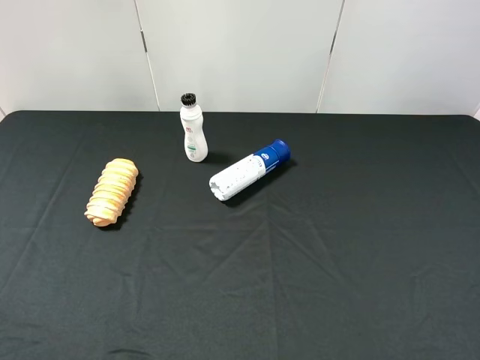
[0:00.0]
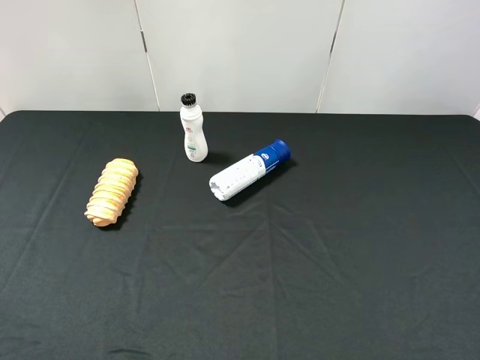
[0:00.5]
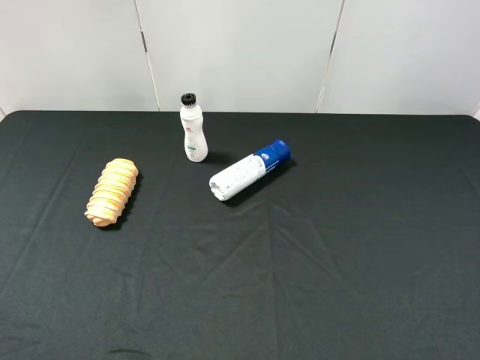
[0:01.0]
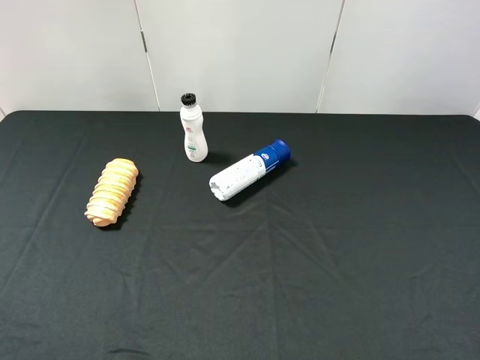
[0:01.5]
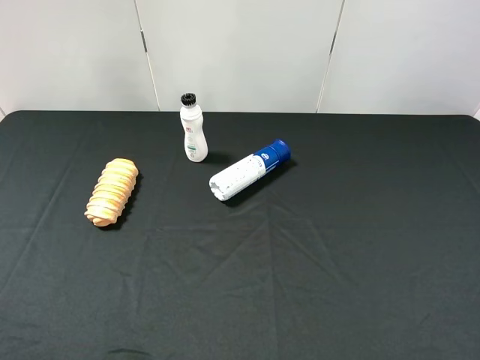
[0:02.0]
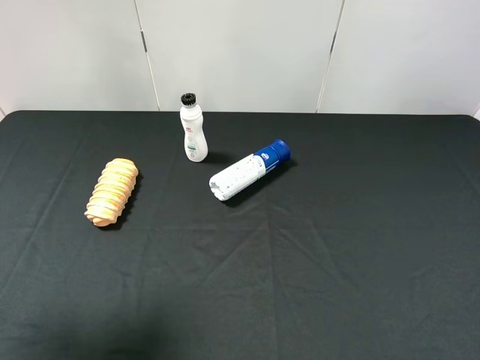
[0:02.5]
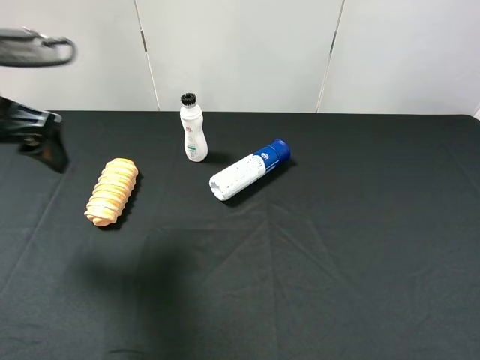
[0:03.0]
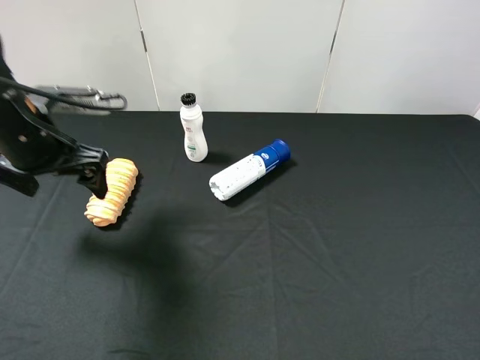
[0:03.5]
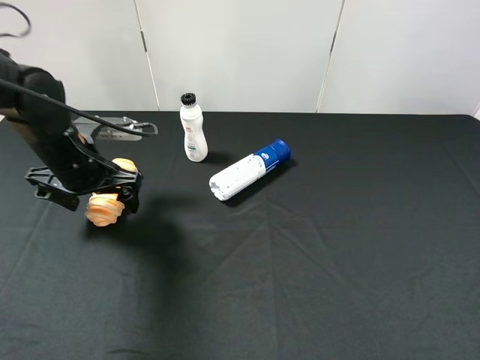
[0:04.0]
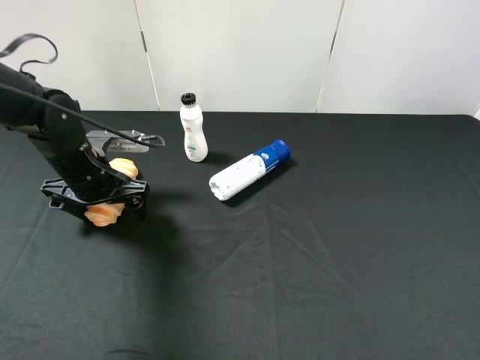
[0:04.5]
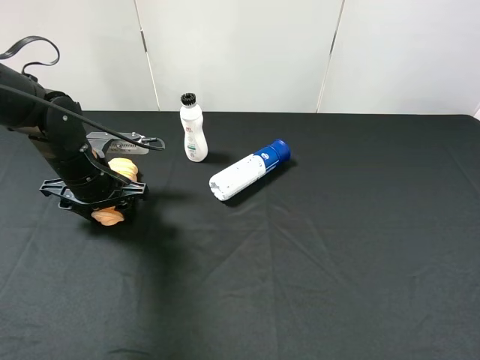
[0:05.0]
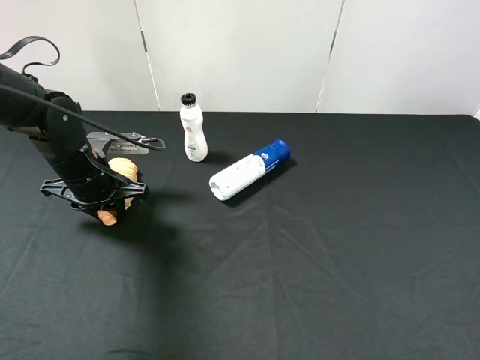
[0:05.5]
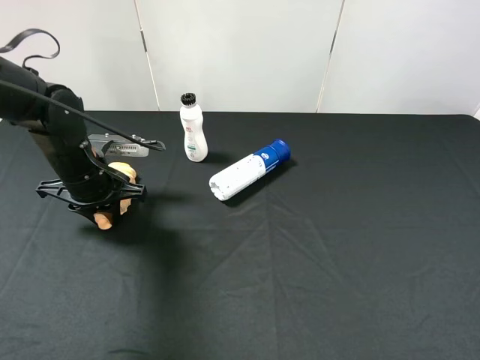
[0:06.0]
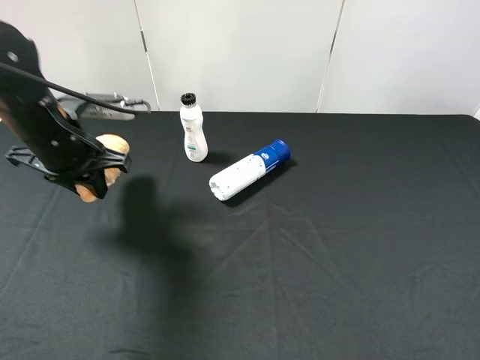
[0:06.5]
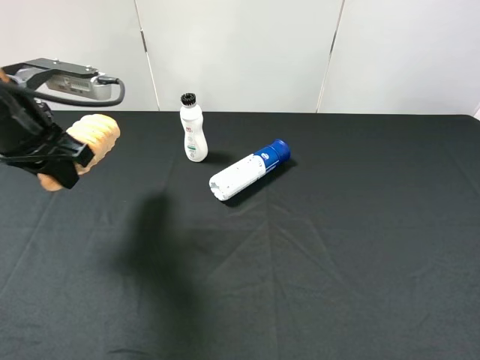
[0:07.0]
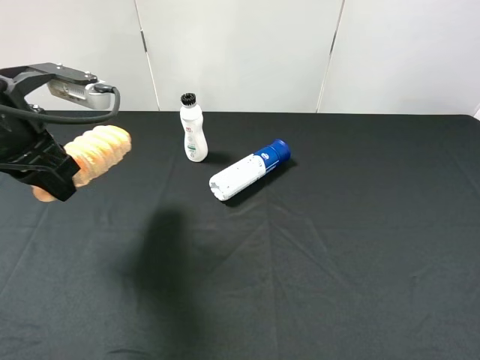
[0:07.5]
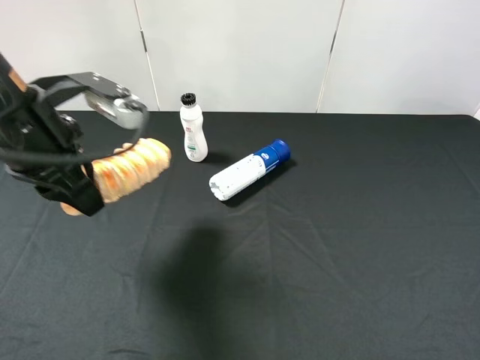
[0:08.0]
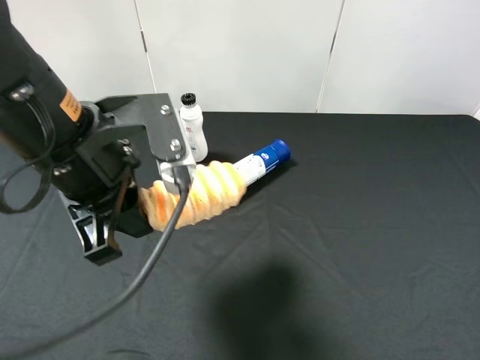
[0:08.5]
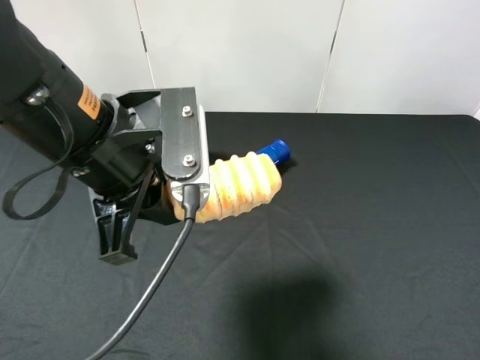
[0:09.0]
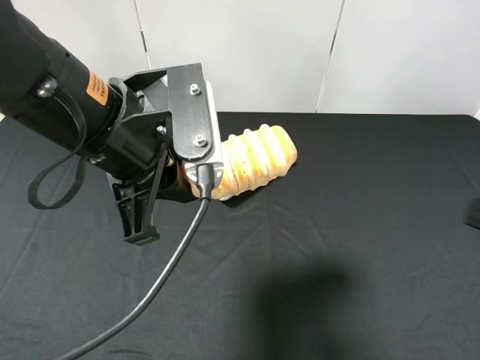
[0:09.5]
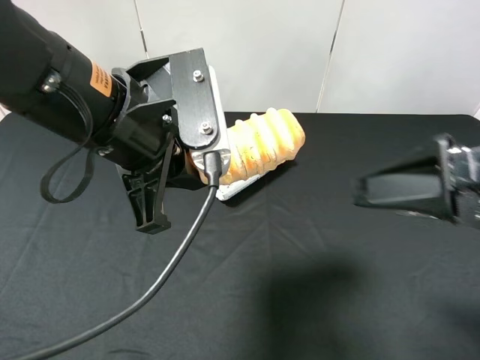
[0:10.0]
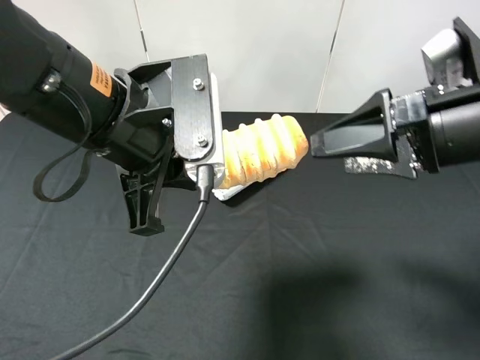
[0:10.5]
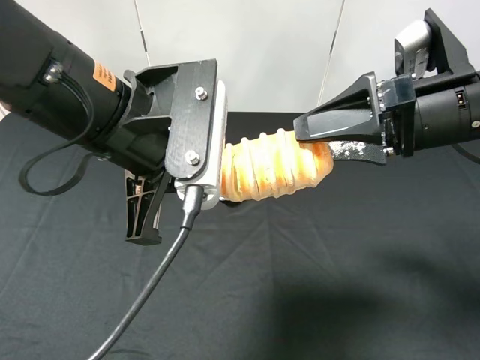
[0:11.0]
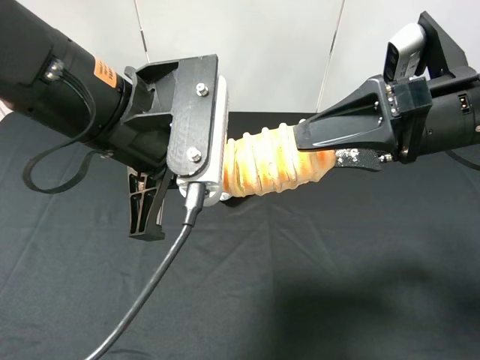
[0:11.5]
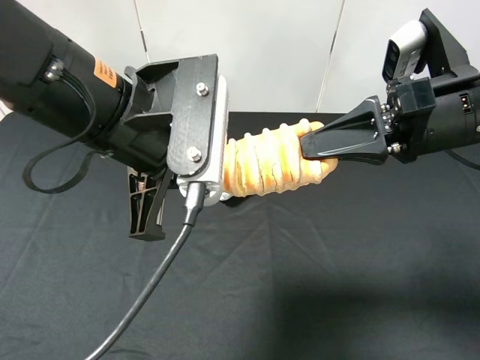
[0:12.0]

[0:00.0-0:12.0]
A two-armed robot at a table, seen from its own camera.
Task of the whole recording: use the left gripper to pick up the item and transfer it from the left gripper to the right gripper.
2.0 to 4.0 s: The left gripper travels forward and downward by some 35 cm.
4.0 to 6.0 s: The left gripper closes up.
6.0 to 8.0 s: The left gripper is displaced upward and backward by approximately 15 cm.
8.0 to 10.0 s: The left gripper shifts about 10 cm to the right. Meanwhile the right gripper heads forward and to the left, covering roughly 15 cm.
10.0 to 12.0 s: The right gripper travels forward by approximately 10 cm, and closes.

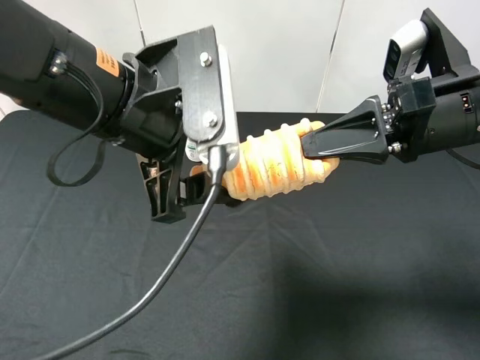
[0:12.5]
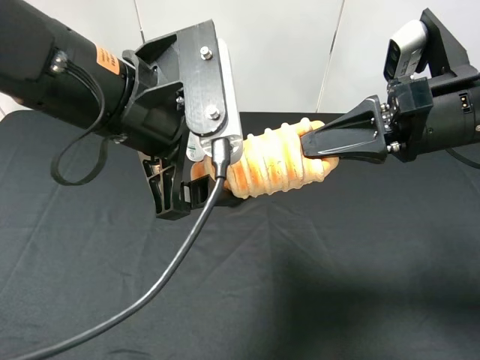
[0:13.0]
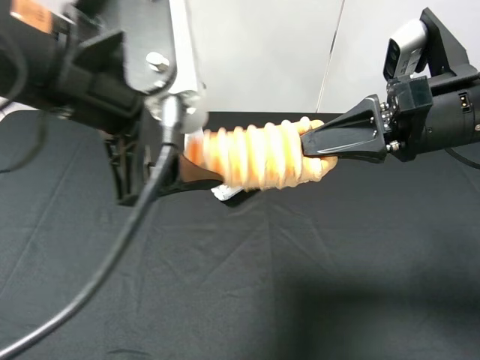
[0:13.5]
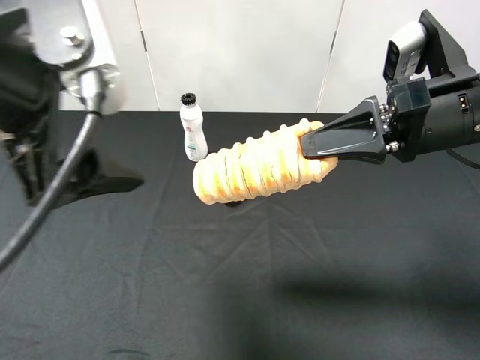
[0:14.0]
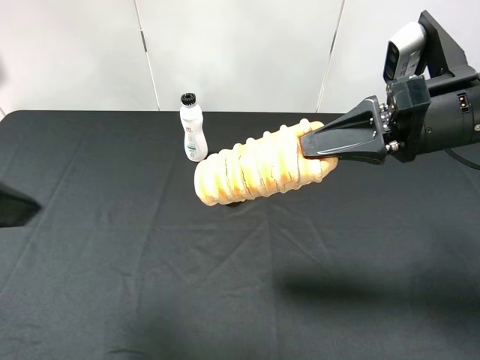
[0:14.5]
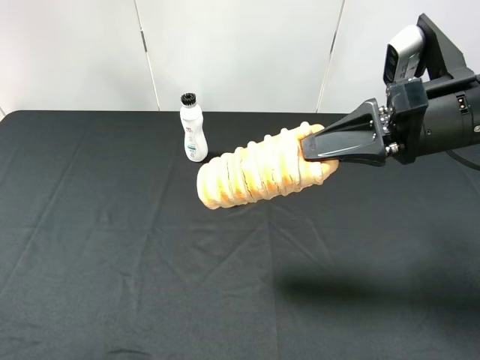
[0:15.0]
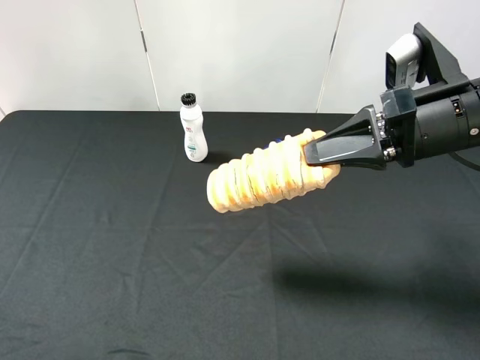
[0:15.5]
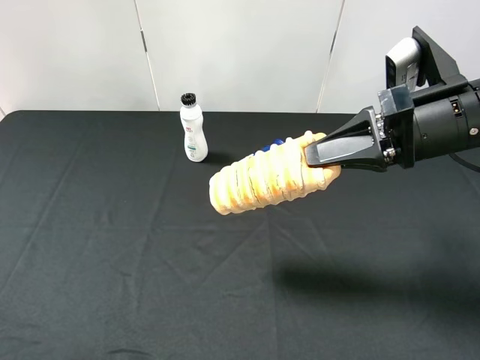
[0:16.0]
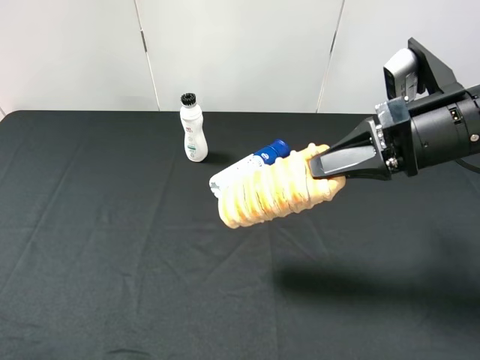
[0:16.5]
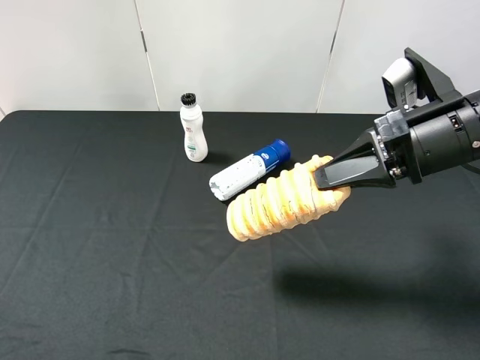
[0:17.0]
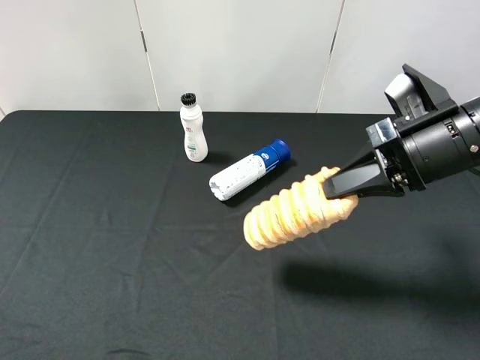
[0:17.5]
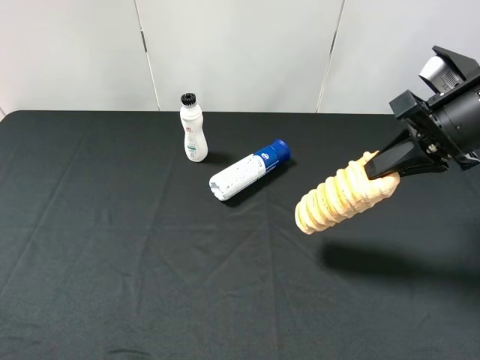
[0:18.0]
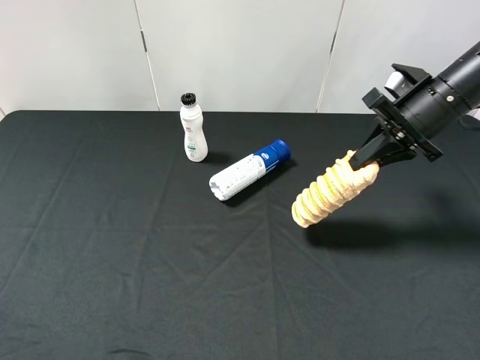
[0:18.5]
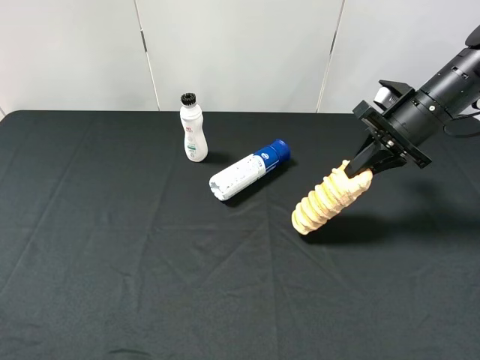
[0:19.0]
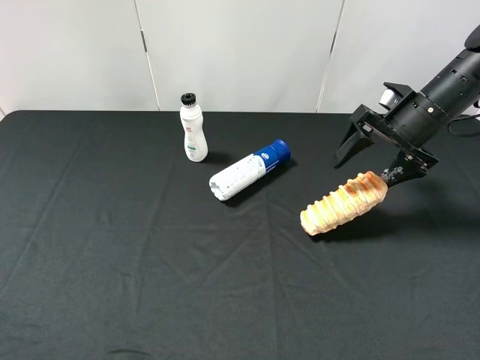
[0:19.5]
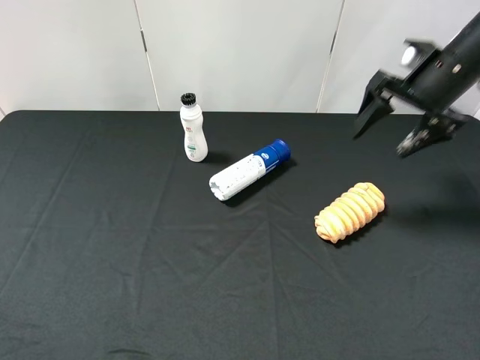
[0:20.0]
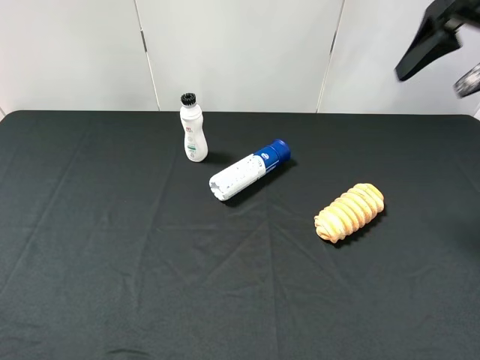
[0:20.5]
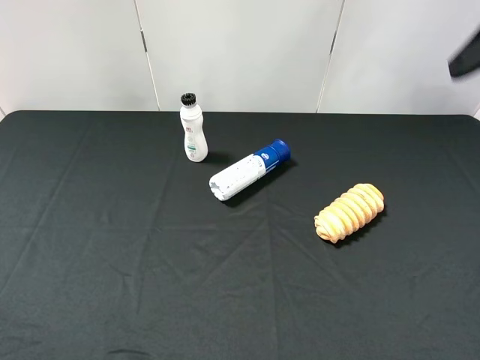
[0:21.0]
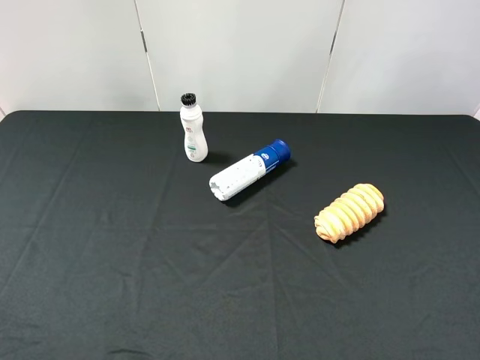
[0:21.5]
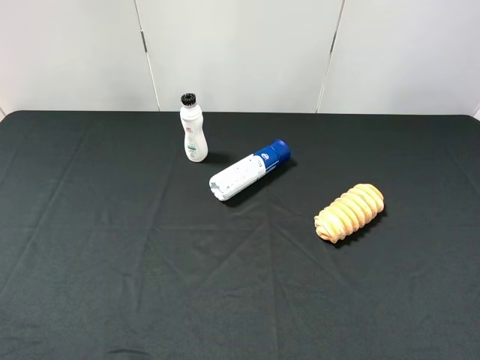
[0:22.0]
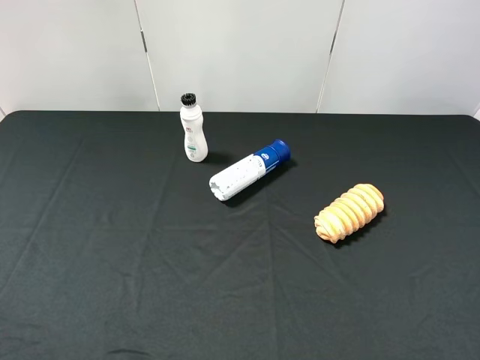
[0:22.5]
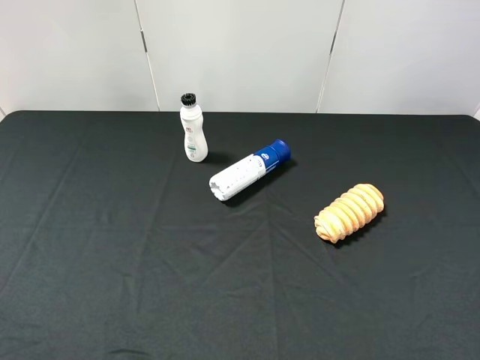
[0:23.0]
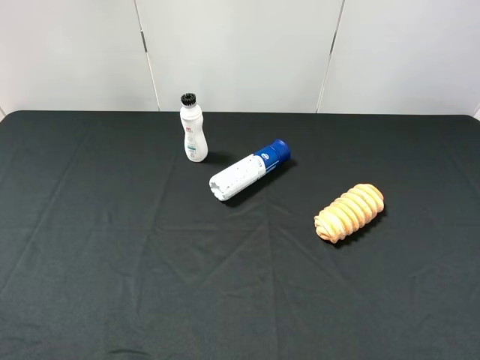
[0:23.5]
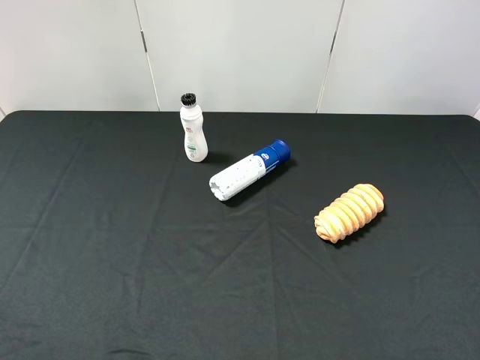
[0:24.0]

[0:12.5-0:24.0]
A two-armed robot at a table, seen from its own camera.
Task of the whole recording: use the left gripper to pick up the item and transfer it from the left gripper to the right gripper.
12.5 to 14.5 s: The left gripper heads to the left, backward and upward, covering some 15 cm.
14.5 to 16.5 s: The left gripper is displaced to the left, backward and downward by about 15 cm.
16.5 to 18.5 s: The right gripper shifts roughly 10 cm forward.
18.5 to 20.0 s: The right gripper opens.
20.0 to 22.0 s: The right gripper moves backward, about 30 cm.

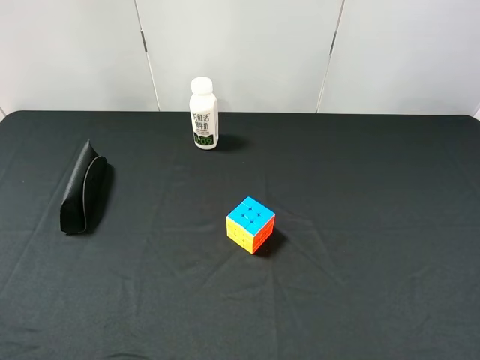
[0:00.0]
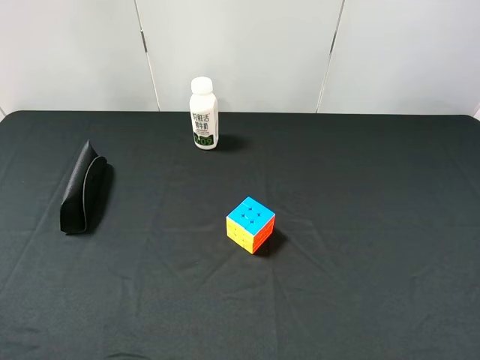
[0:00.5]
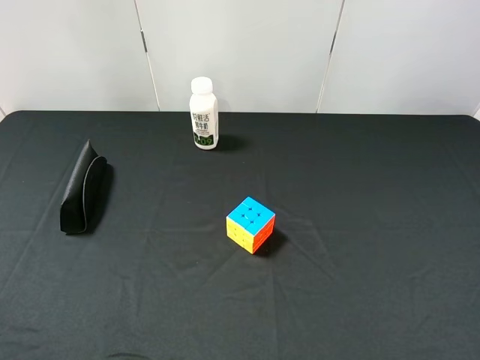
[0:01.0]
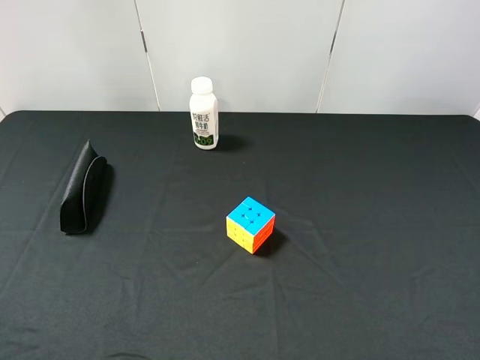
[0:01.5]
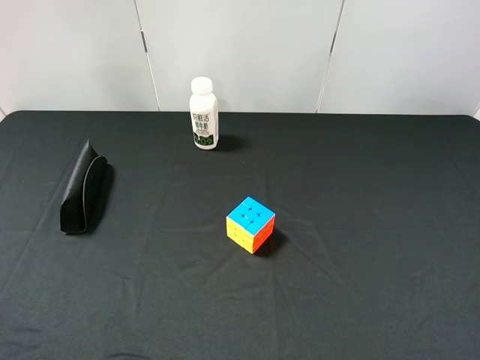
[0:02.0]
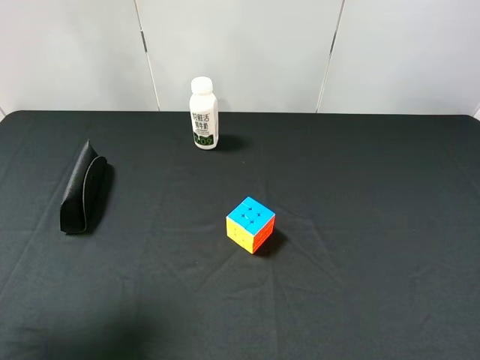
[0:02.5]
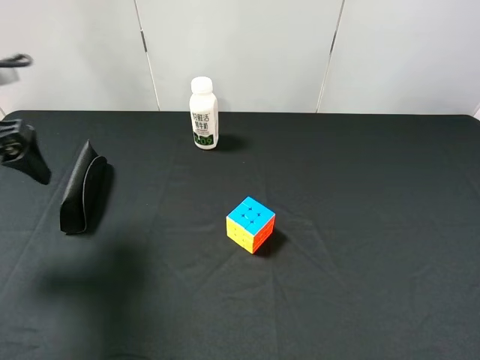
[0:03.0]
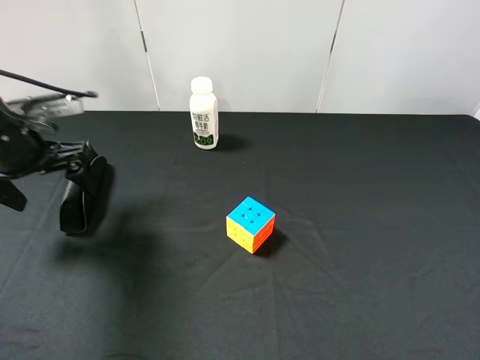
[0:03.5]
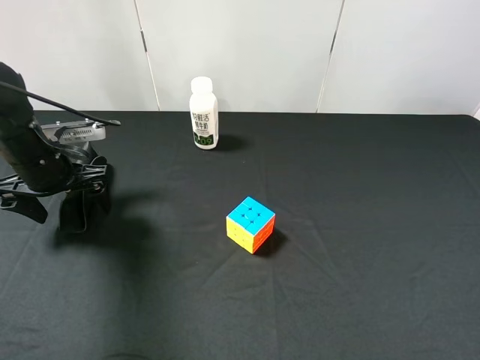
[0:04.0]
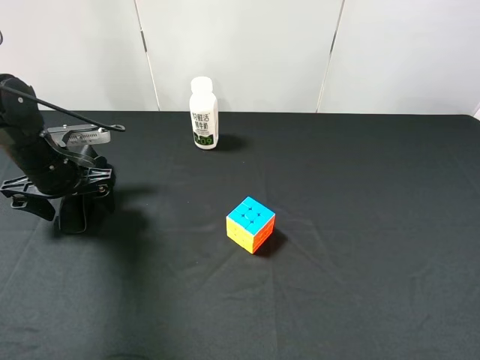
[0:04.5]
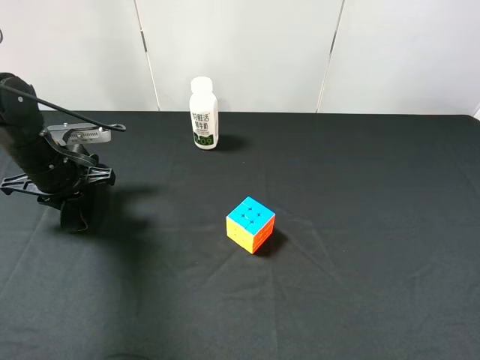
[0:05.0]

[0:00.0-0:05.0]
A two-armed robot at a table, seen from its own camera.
Task of the whole recording: use the left gripper to pick up the item and transfer it from the left gripper to the right gripper.
0.0 to 2.5 s: The left gripper shifts roughly 15 cm forward.
2.5 to 5.0 s: The left gripper travels downward and forward by about 25 cm, and closes up.
